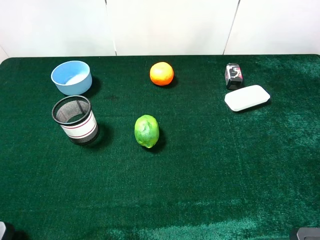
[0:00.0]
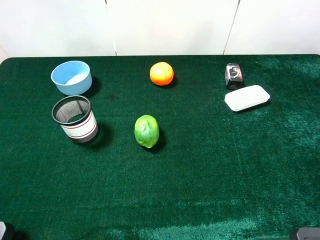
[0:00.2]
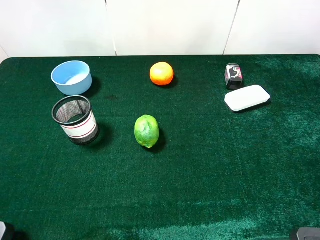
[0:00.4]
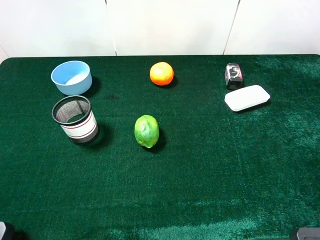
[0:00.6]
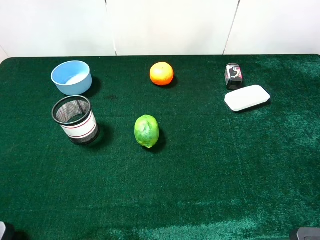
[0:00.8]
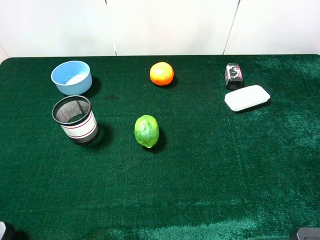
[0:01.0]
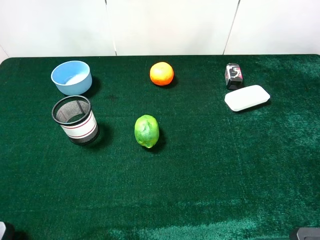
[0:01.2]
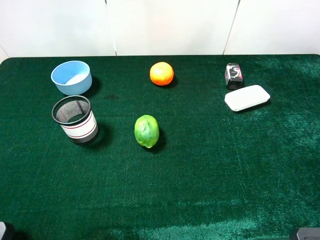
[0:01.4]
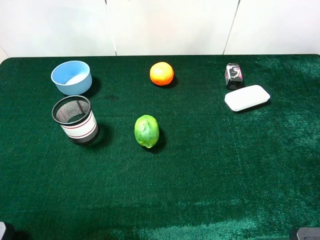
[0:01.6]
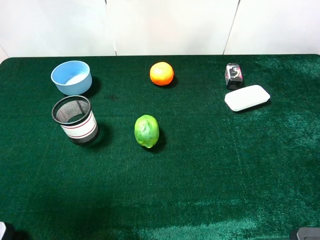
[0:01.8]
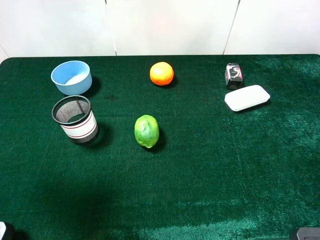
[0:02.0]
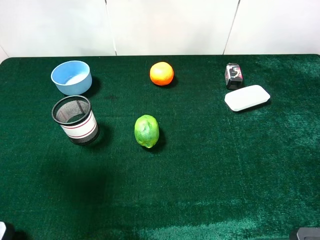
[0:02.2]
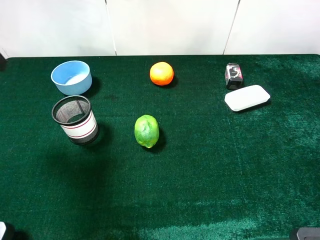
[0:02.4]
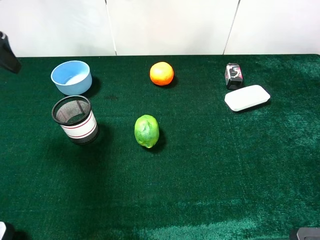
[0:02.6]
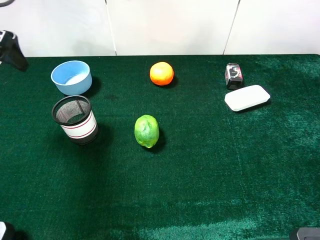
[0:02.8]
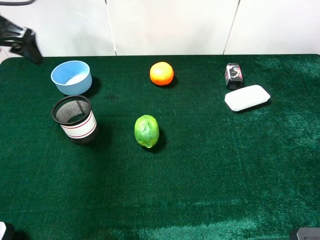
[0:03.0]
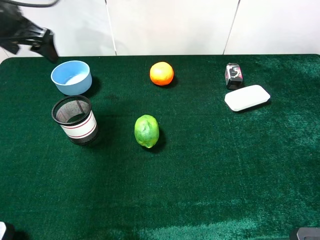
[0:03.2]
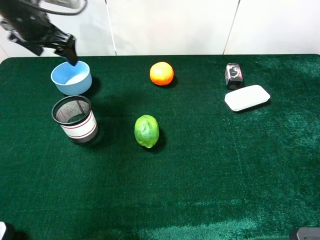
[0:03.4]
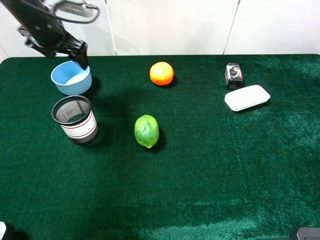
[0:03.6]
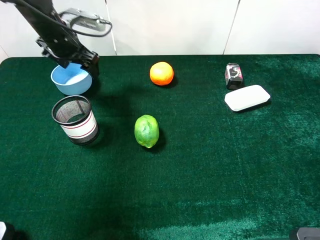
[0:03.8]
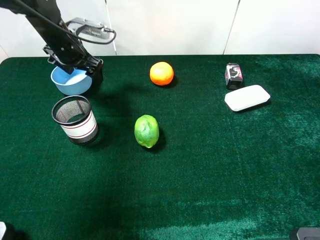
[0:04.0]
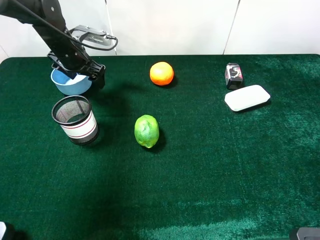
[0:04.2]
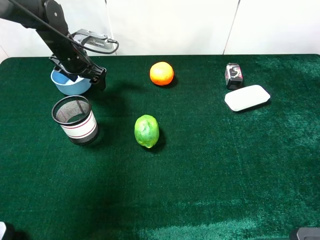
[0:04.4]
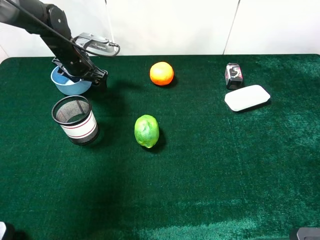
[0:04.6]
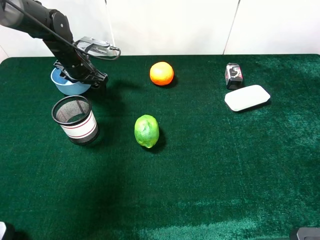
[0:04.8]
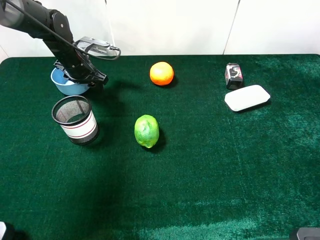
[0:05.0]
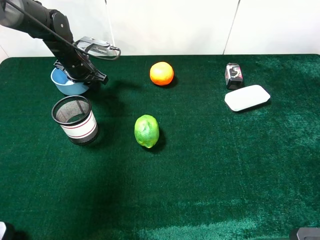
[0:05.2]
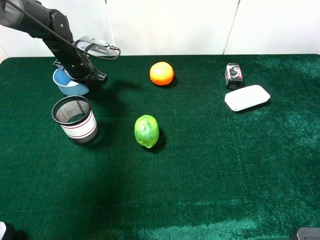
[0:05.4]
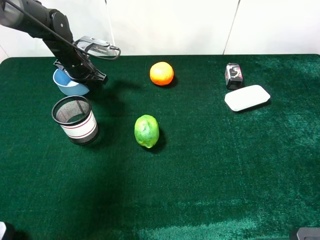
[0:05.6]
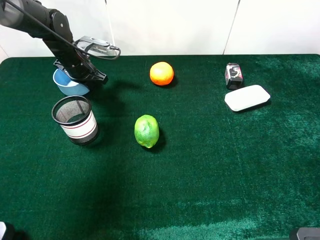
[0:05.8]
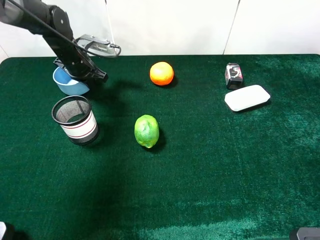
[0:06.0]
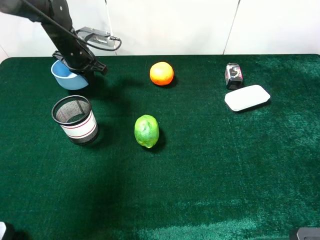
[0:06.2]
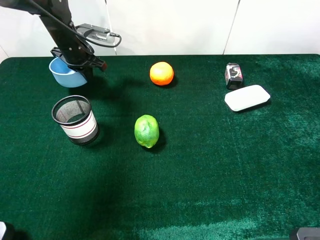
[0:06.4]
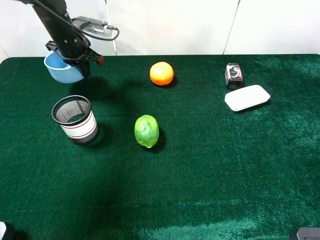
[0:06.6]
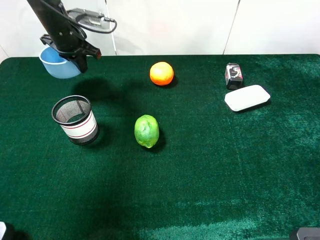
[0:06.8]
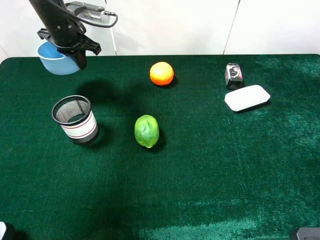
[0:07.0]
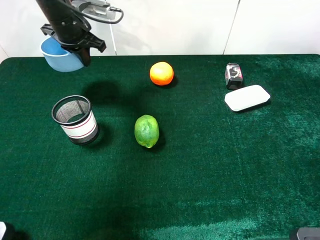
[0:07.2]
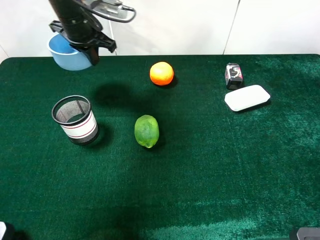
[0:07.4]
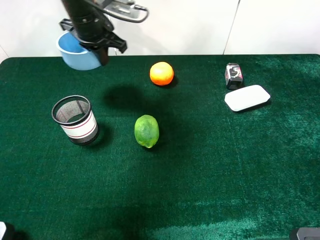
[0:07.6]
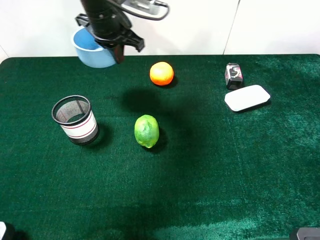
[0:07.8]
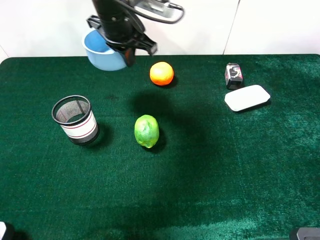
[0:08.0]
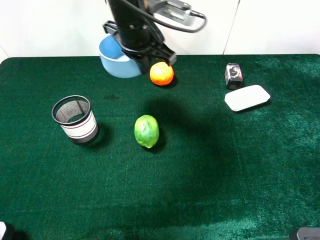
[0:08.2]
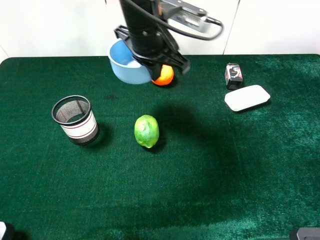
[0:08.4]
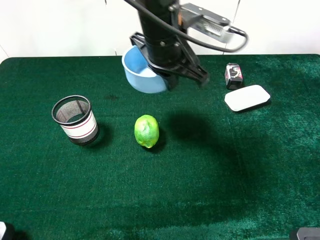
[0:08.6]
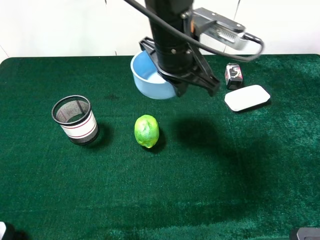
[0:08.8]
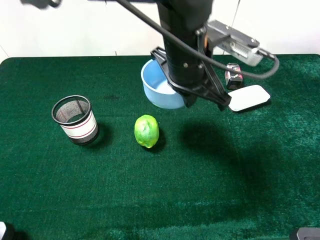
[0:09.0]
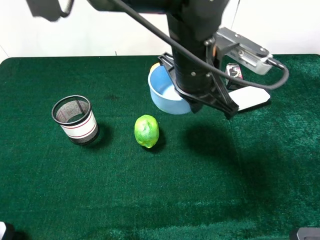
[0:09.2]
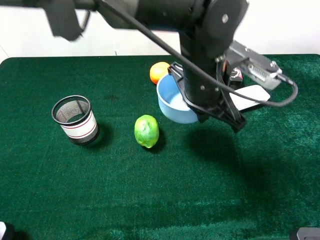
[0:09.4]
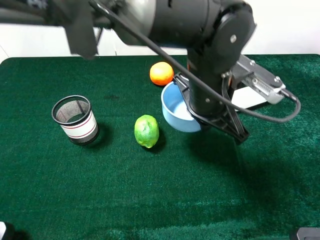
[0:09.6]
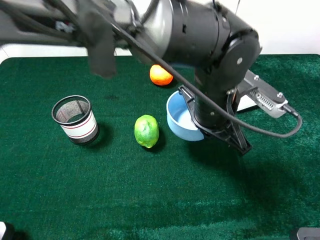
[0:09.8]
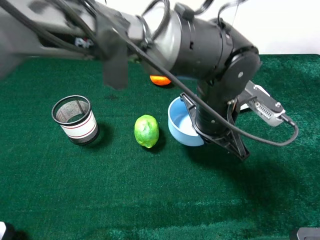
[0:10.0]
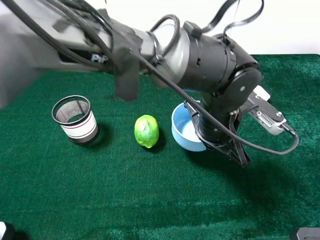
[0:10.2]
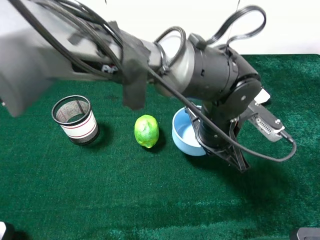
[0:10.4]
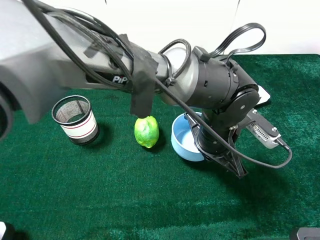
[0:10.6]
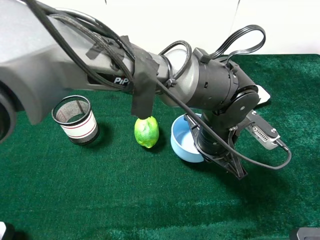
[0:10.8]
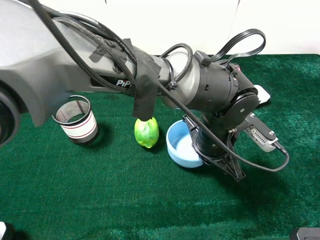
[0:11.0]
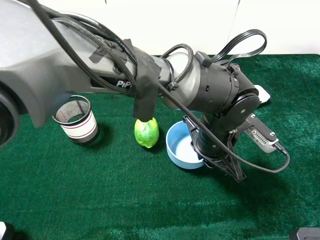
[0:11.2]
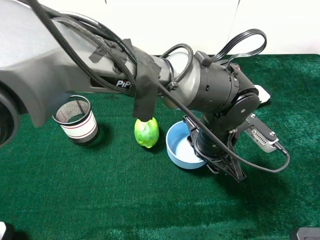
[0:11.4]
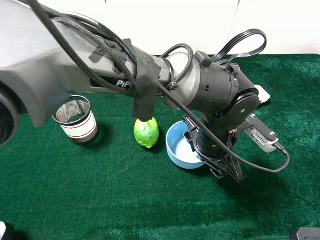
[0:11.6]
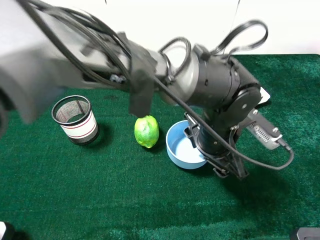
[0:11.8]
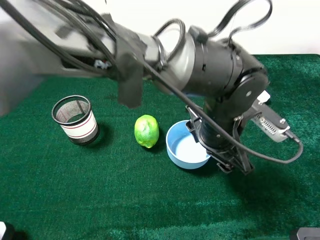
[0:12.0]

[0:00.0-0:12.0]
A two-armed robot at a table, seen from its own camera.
Task of the whole recording: the gripper move the object.
Step, 0:00.0 to 0:05.4: Grasp the blue bowl with the left gripper.
Step, 0:05.6 to 0:12.0: Place the blue bowl on the table with the left gripper.
0:00.0 to 0:01.6: The left gripper travels forward and upward by approximately 10 cm.
0:01.6 to 0:03.0: The left gripper goes some 25 cm forward.
0:03.0 to 0:04.4: The left gripper is displaced downward, forward and to the right by about 20 cm.
0:04.4 to 0:06.0: The left gripper closes its fingers.
0:06.0 to 0:07.6: The left gripper goes some 15 cm upward and to the right.
0:07.6 to 0:09.0: The left gripper shifts some 25 cm to the right and backward.
0:09.0 to 0:10.4: The left gripper is displaced downward and to the right by about 10 cm.
0:10.4 to 0:12.0: The left gripper opens.

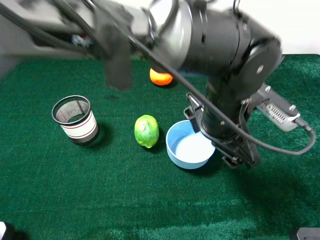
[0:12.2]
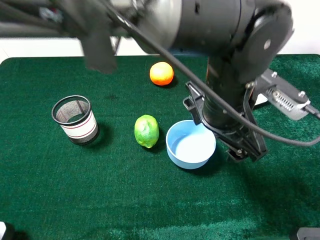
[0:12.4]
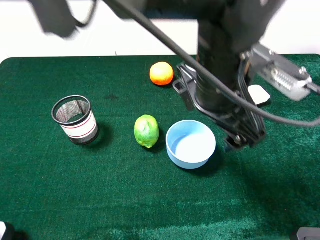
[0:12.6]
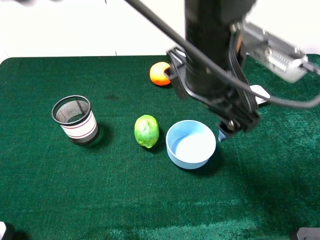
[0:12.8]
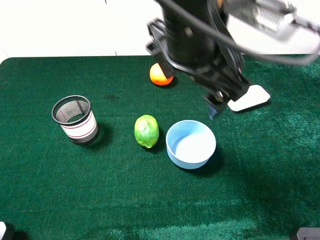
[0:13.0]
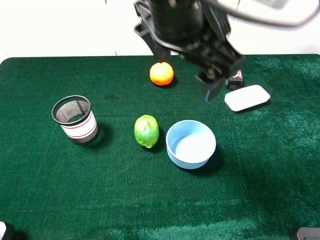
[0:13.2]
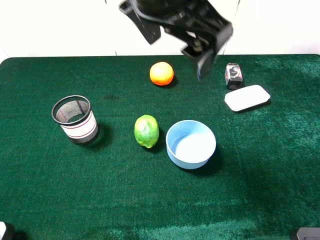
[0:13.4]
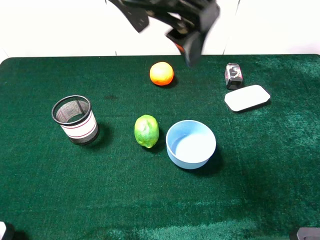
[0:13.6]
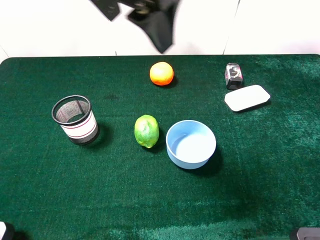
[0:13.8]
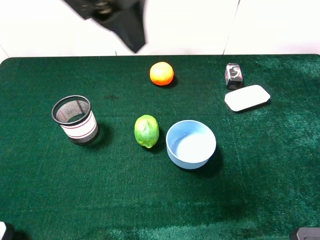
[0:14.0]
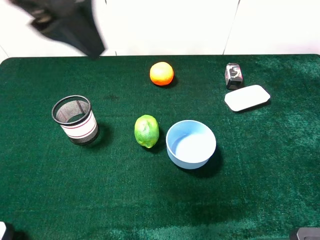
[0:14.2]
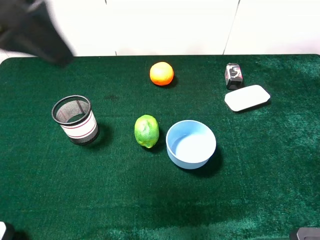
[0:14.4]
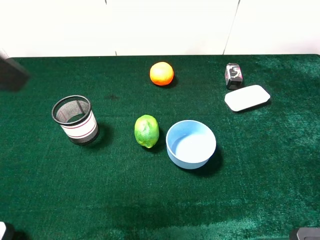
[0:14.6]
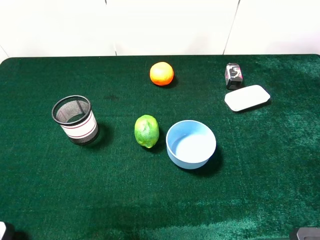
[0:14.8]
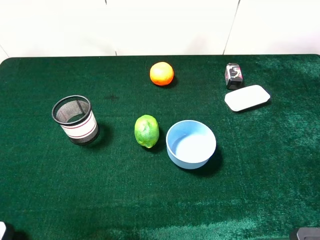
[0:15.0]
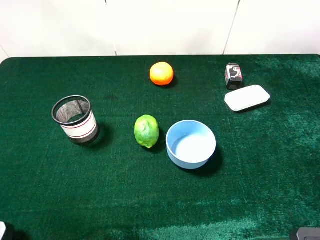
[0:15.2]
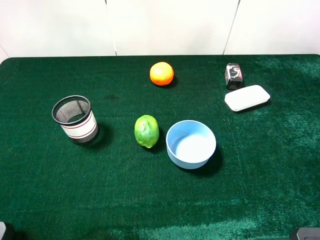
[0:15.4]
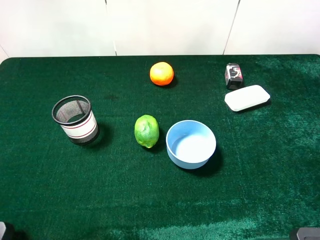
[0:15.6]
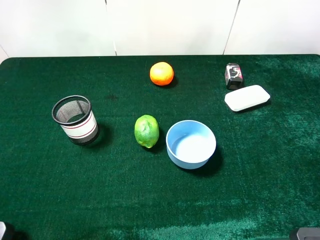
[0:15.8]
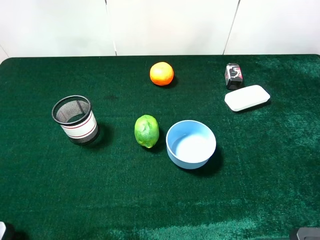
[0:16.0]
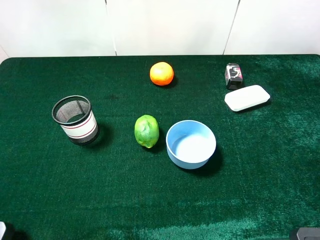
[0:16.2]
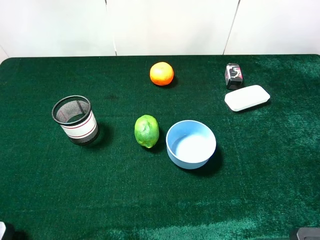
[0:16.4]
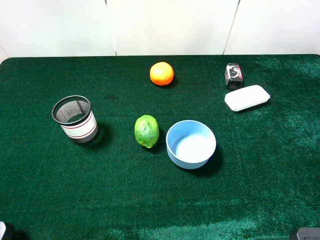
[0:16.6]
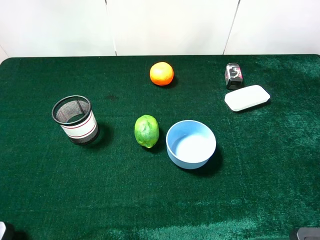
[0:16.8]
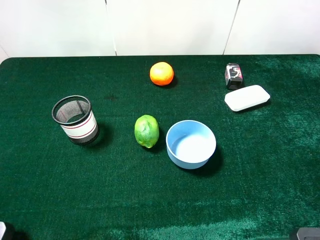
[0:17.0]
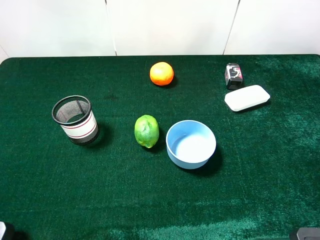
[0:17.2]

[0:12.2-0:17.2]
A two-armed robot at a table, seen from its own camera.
Task of the whole recording: the gripper move the object.
0:12.2 to 0:13.8: The left gripper shifts roughly 25 cm upward and to the left.
0:13.8 to 0:15.6: The left gripper is displaced to the left and backward by about 30 cm.

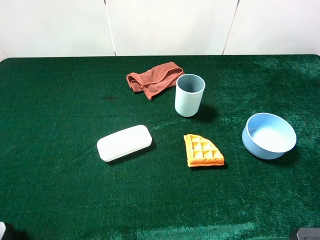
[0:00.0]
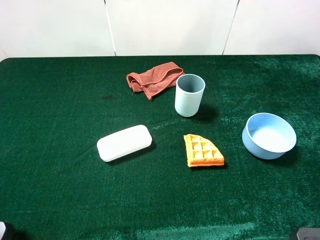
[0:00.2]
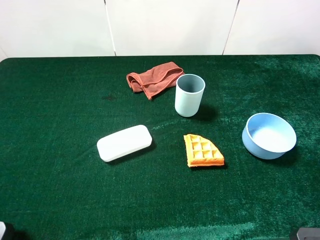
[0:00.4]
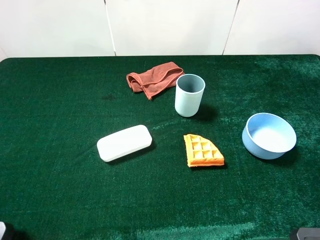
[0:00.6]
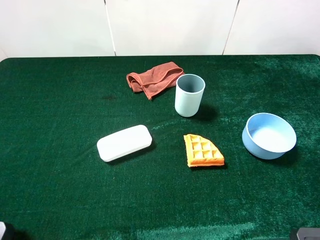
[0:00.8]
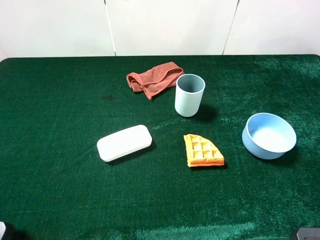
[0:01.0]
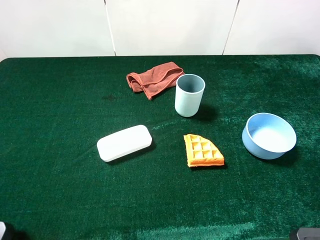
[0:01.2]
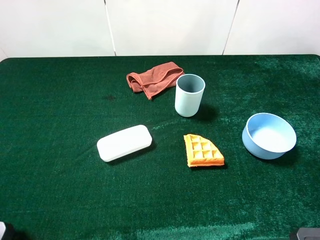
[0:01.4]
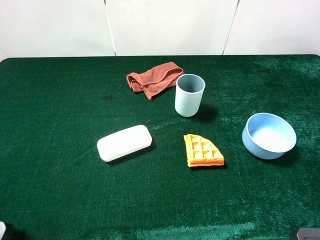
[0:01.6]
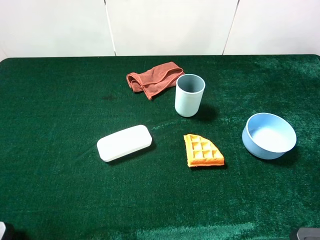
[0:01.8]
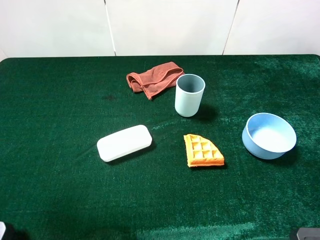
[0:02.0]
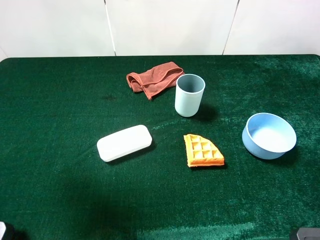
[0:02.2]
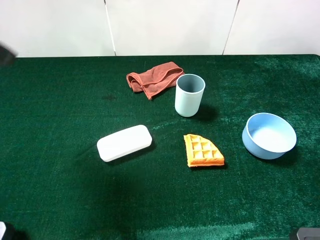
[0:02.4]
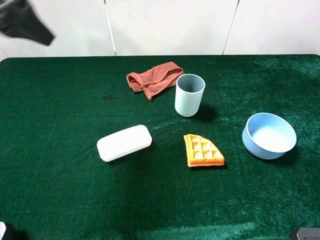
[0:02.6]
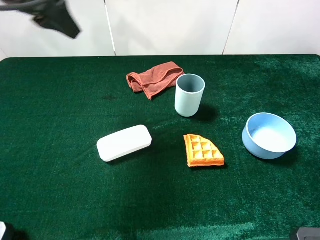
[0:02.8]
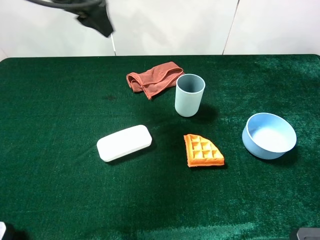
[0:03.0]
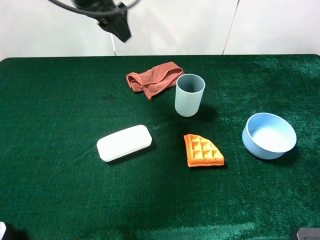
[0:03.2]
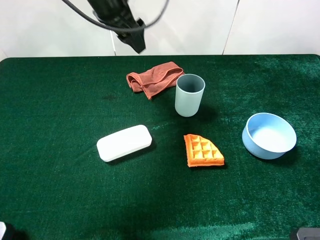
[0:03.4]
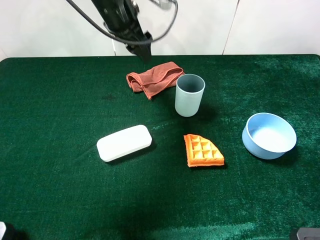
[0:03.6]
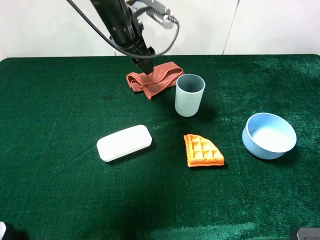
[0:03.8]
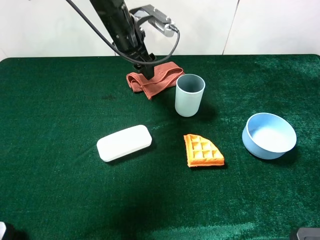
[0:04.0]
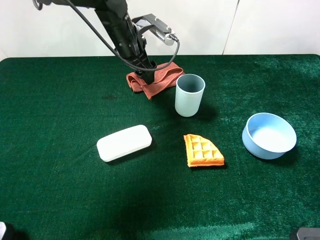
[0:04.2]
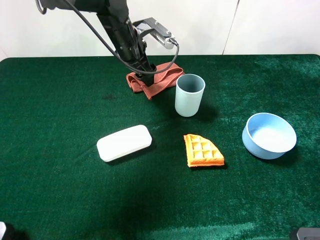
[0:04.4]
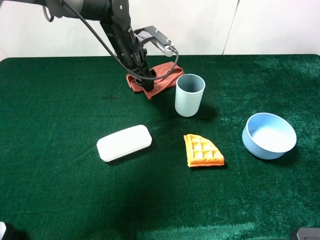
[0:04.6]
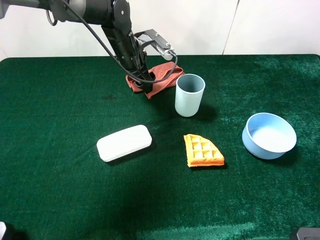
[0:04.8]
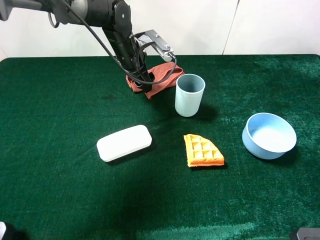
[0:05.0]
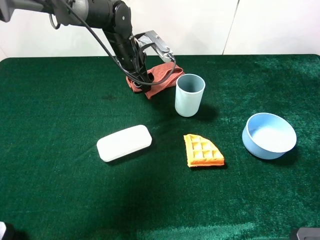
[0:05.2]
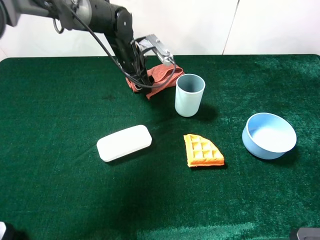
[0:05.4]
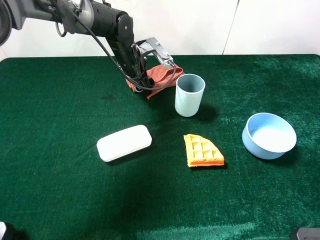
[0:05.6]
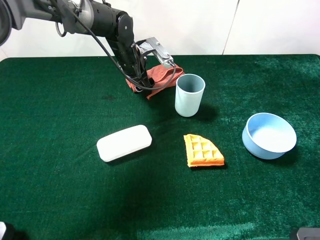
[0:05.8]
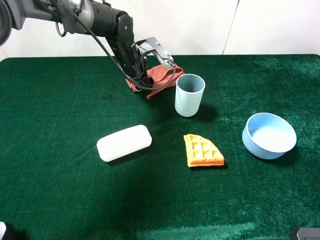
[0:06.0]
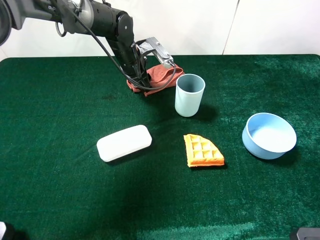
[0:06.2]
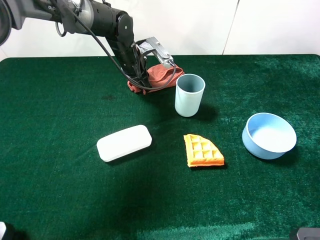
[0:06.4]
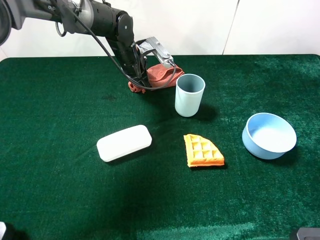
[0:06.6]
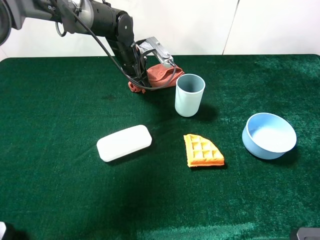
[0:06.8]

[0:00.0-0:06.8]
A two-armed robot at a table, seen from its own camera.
Task of the whole recording: the gripper move the object.
0:00.0 to 0:01.4: Both grippers stay put.
0:01.4 to 0:02.8: The left gripper travels forward by some 30 cm.
0:02.8 to 0:04.0: The left gripper shifts some 20 cm downward, to the right and forward.
0:04.0 to 0:05.4: The left gripper heads downward, covering some 10 cm.
0:05.4 to 0:06.8: The left gripper closes.
